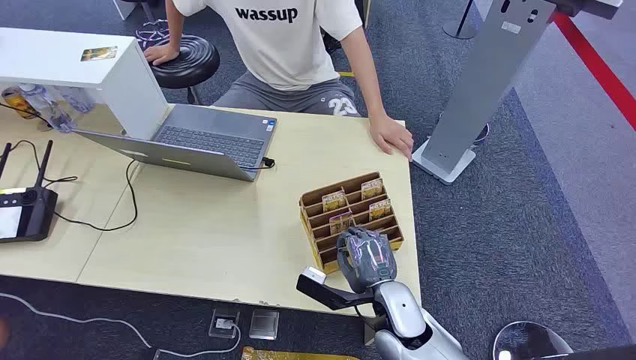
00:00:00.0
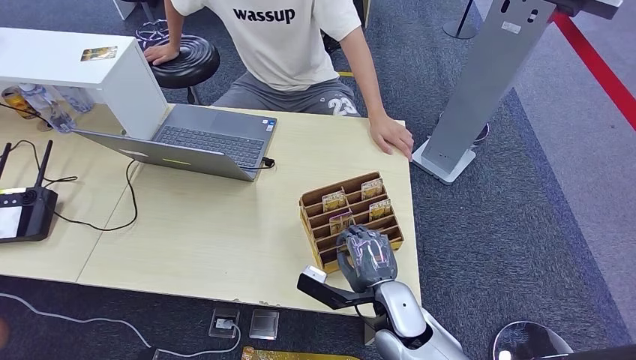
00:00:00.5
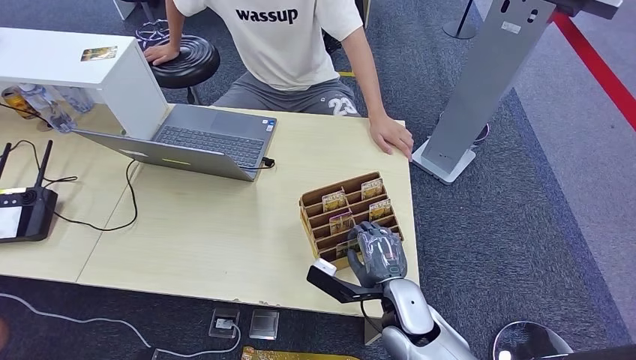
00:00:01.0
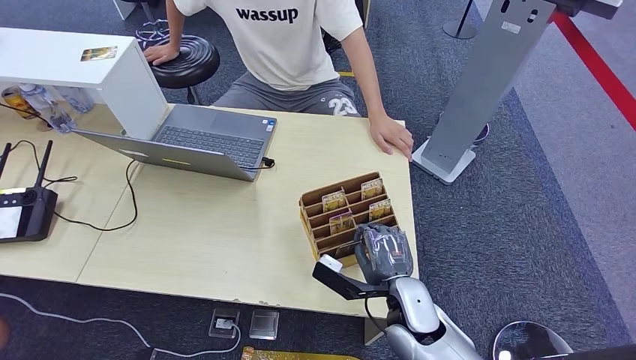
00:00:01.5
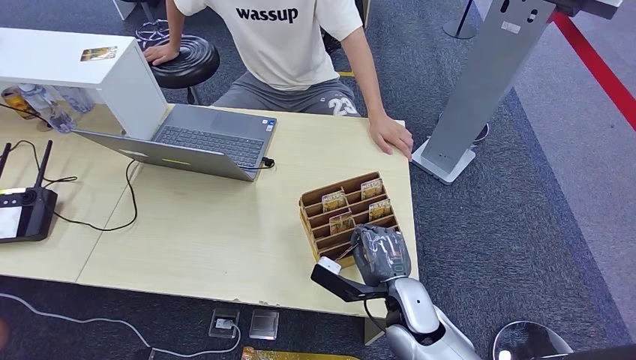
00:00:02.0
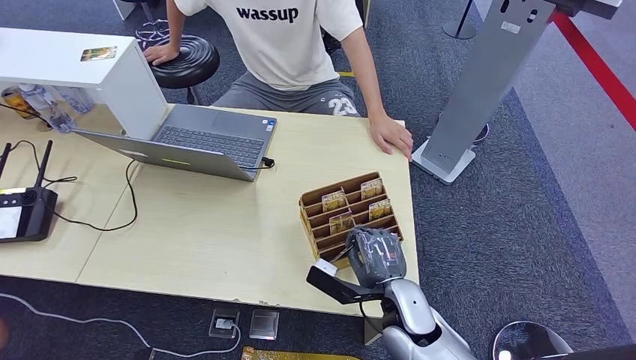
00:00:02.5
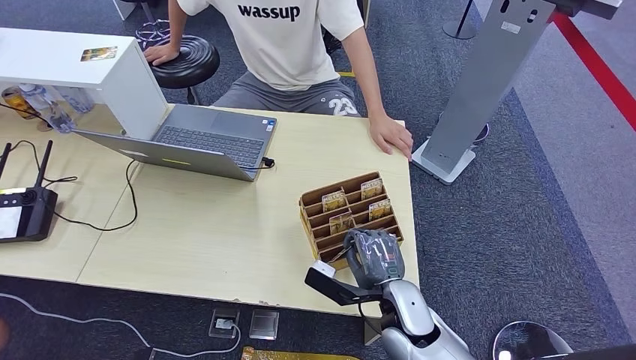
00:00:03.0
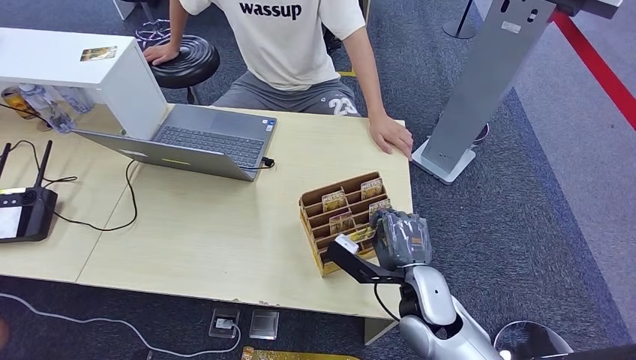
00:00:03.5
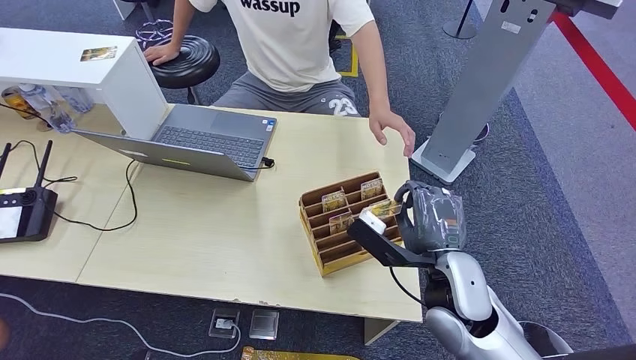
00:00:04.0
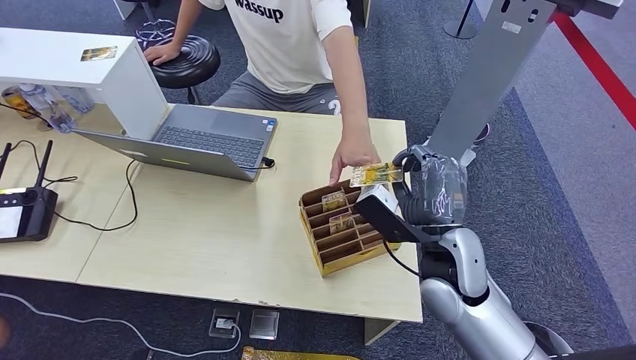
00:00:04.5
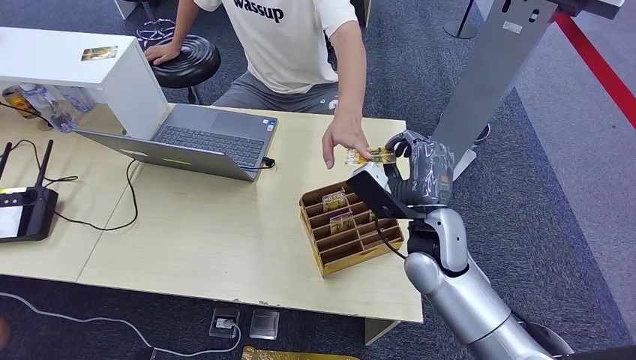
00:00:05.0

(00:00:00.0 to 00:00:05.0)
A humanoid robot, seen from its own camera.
Task of the whole recording: Pick up the card and hand it over to the target person.
Step, 00:00:00.0 - 00:00:03.5: Pick up the key card from the card box.
Step, 00:00:04.5 - 00:00:05.0: Hand the key card to the target.
00:00:02.5 - 00:00:05.0: The right hand shifts some 15 cm upward and forward.
